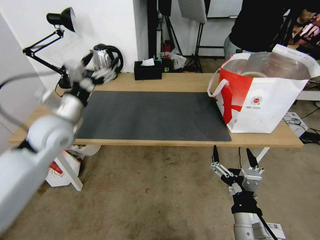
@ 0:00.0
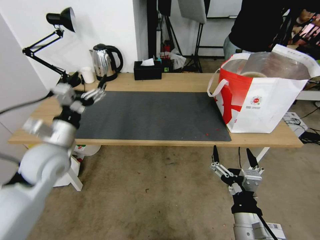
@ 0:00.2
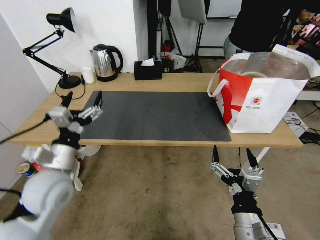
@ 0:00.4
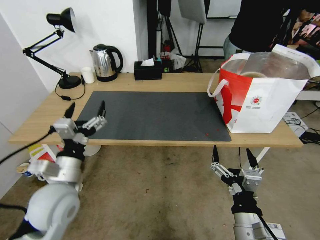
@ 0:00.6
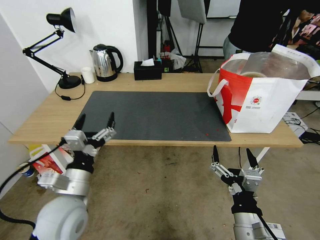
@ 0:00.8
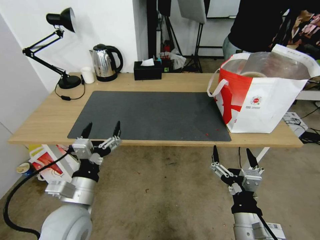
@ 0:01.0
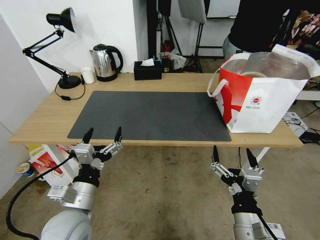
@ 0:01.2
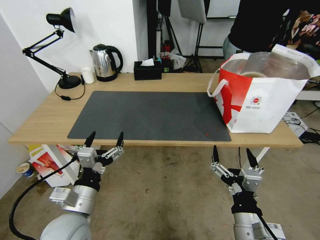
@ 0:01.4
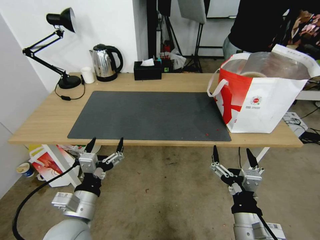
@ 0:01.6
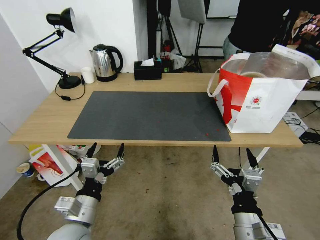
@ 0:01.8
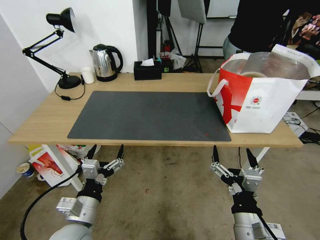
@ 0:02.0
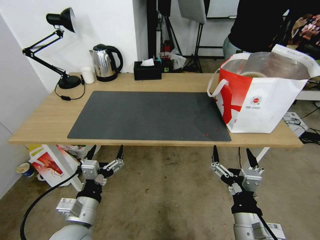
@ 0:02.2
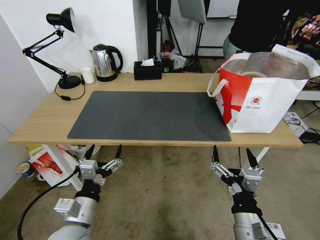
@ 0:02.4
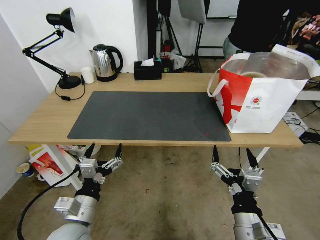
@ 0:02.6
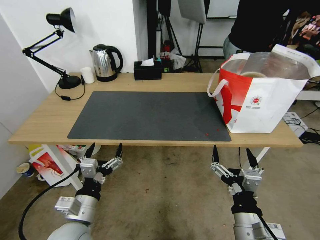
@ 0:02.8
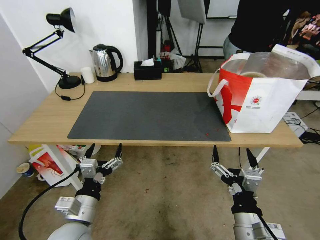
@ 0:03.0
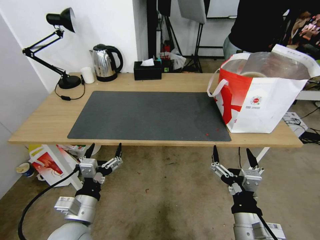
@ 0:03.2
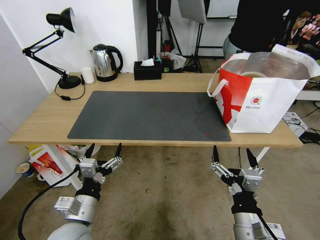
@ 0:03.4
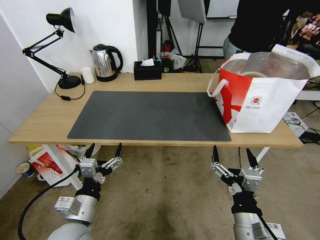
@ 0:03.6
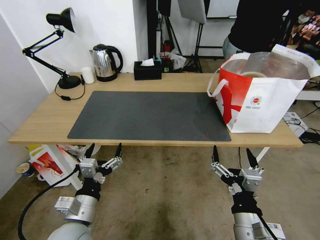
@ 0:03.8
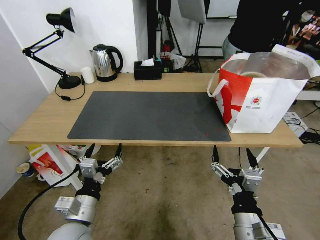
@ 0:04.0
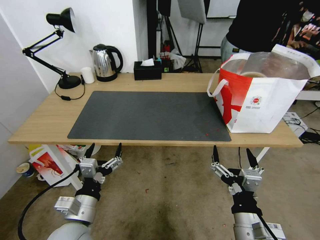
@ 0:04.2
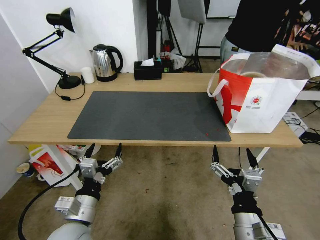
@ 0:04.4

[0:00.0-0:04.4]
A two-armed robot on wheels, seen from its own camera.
Task of the whole recording: Pick up the trash from the table and place it into the takeout bag.
0:00.0 to 0:01.4: The left gripper goes roughly 25 cm backward, downward and to the right.
0:01.4 to 0:03.0: There are only small adjustments of the grippers.
0:03.0 to 0:04.4: Neither gripper changes place.
